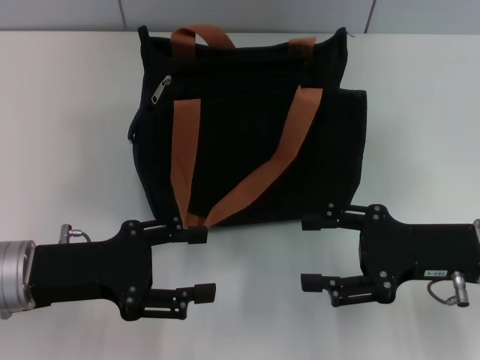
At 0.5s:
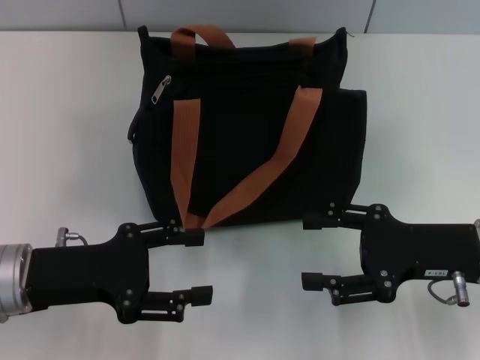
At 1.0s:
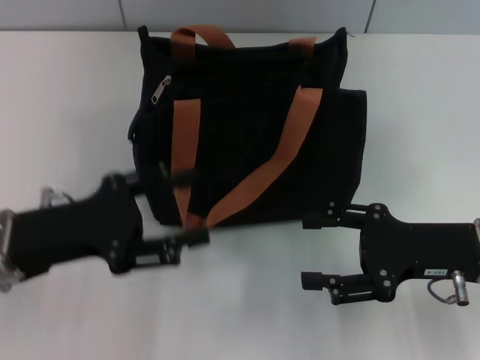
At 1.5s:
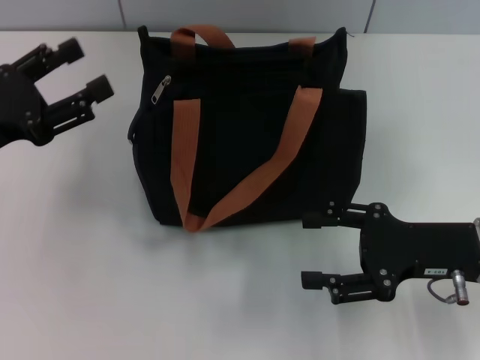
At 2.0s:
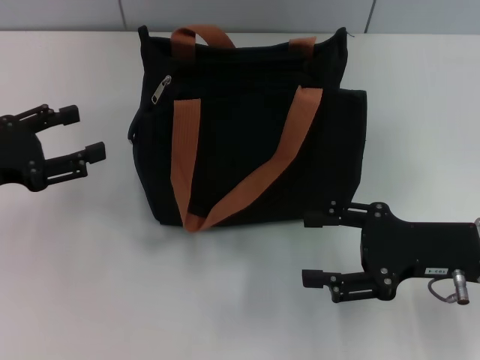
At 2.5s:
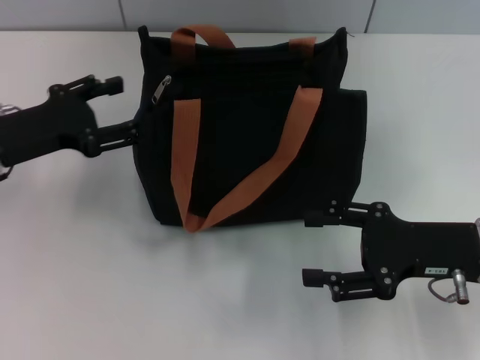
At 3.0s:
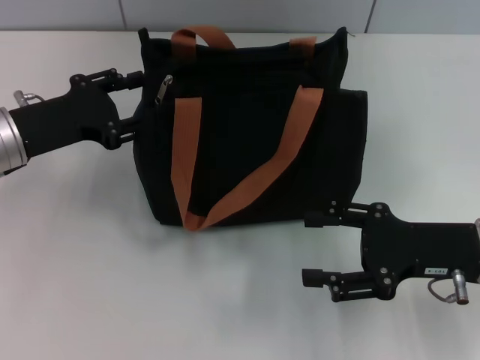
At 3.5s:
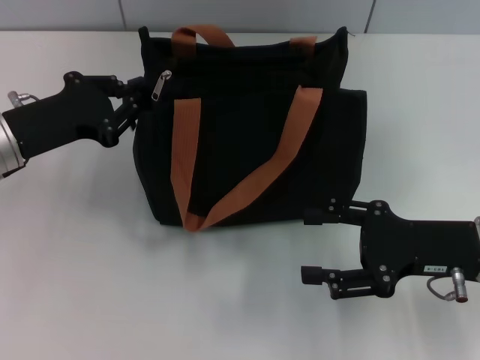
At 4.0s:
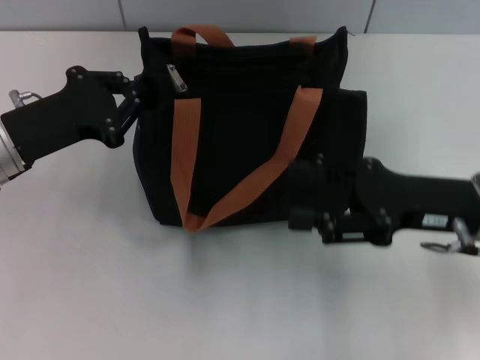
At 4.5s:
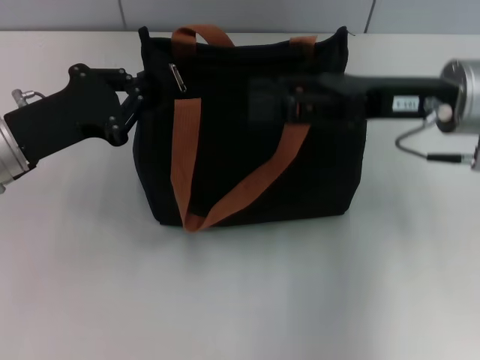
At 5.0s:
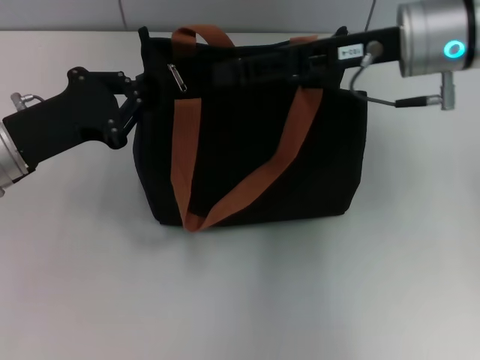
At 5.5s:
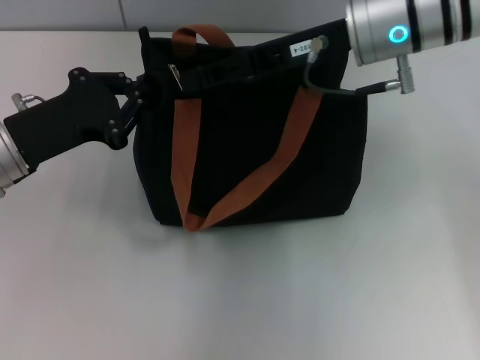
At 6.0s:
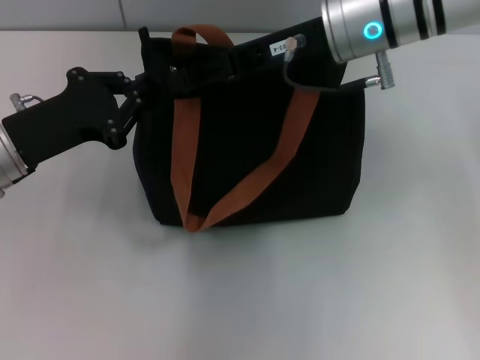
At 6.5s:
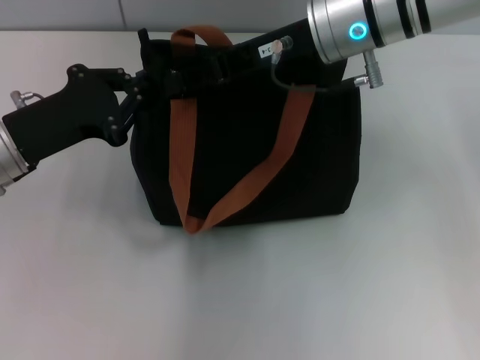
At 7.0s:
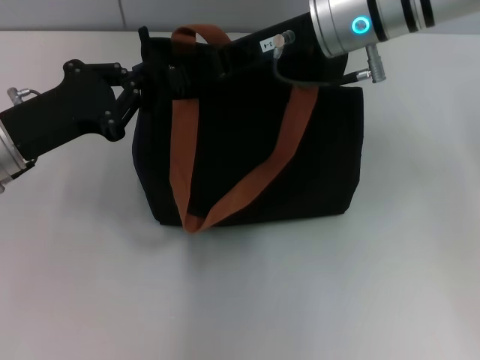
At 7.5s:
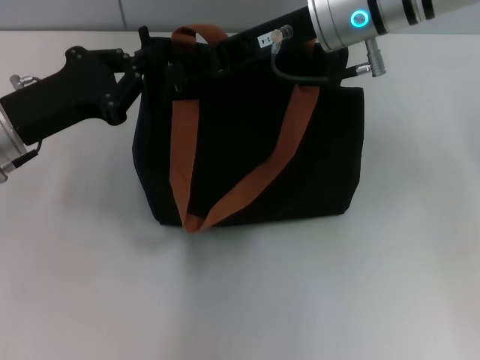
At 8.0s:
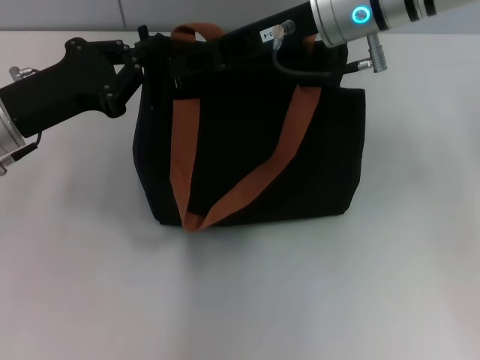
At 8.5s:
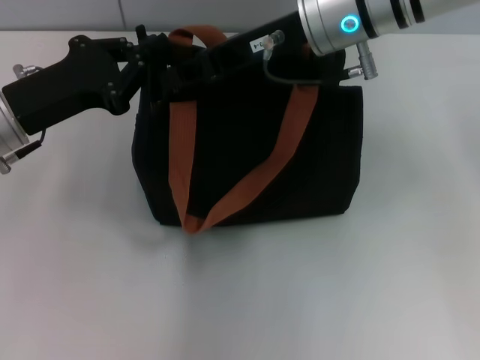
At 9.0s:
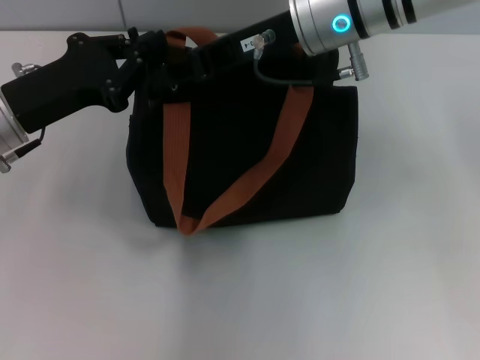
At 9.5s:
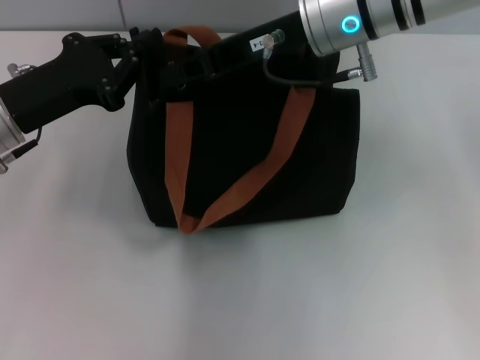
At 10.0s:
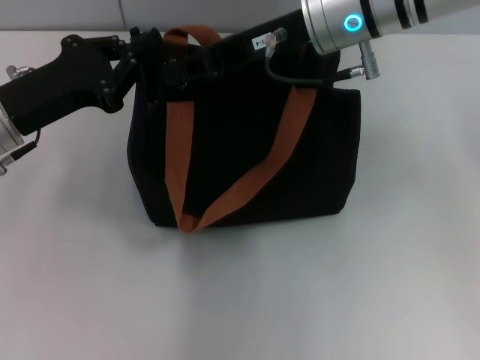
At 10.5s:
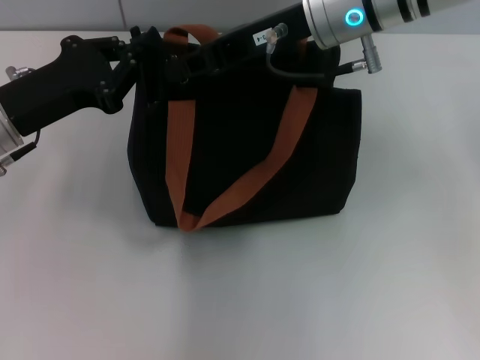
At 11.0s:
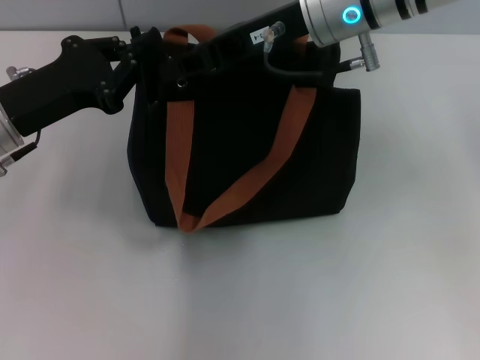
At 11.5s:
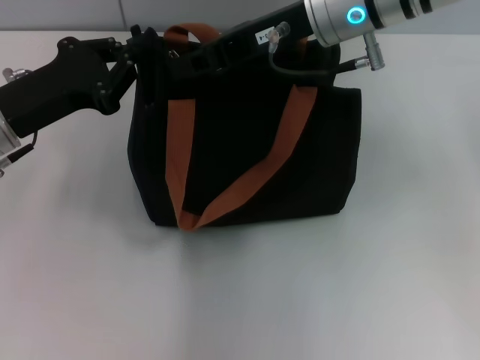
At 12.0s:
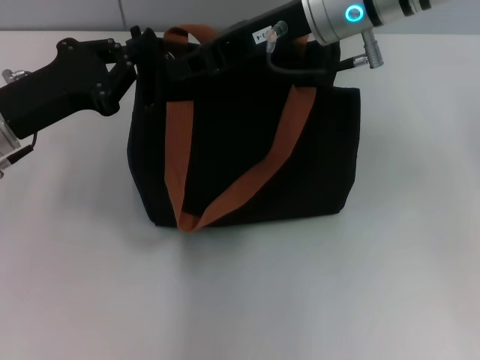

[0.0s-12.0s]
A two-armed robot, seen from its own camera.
0.0s to 2.0s: The left gripper is displaced to the left by some 10 cm.
2.0s to 4.0s: The left gripper travels to the right by some 5 cm, and closes.
4.0s to 6.0s: The right gripper goes some 20 cm forward, to the left and upward, and closes.
6.0s to 10.0s: There are only small adjustments of the grippers.
10.0s to 12.0s: Both grippers stay about where they are.

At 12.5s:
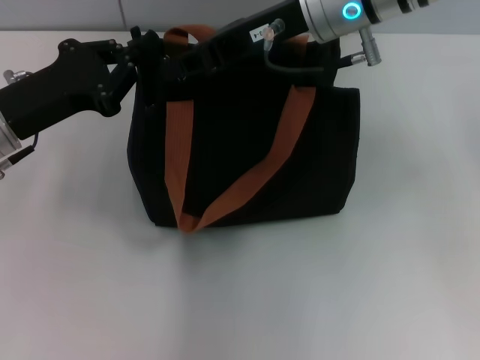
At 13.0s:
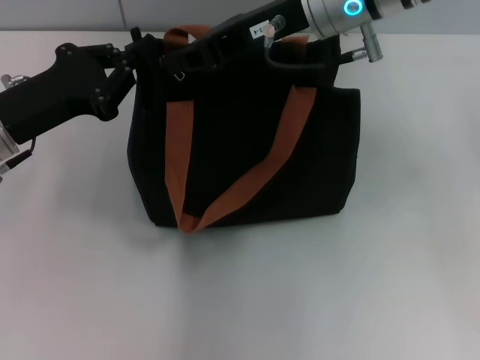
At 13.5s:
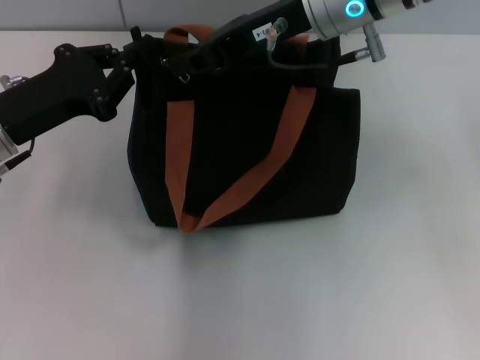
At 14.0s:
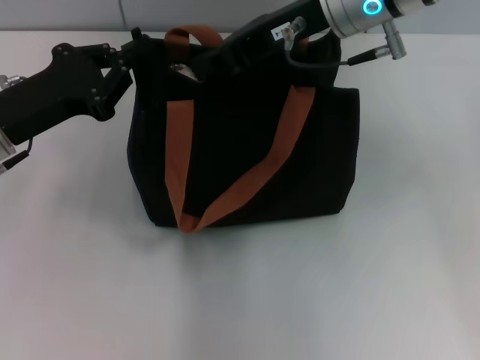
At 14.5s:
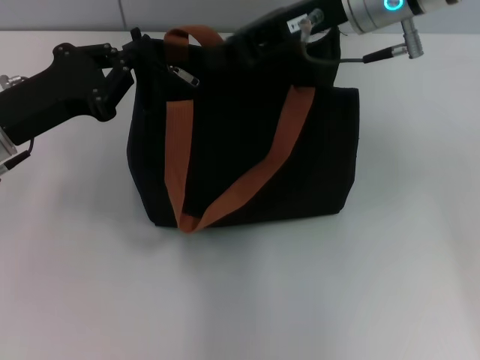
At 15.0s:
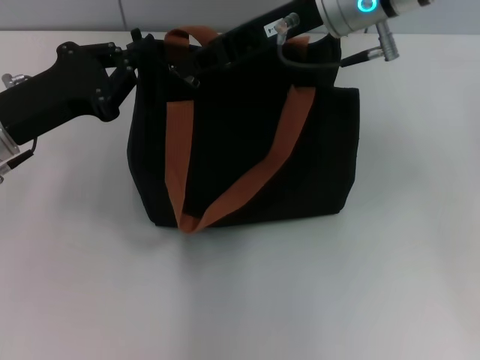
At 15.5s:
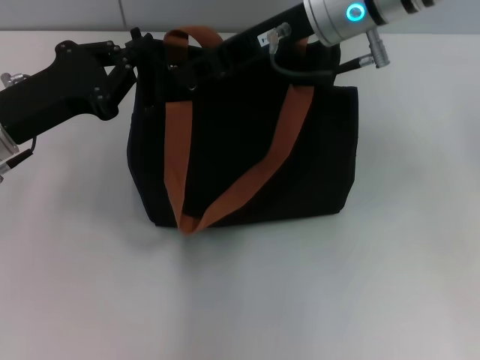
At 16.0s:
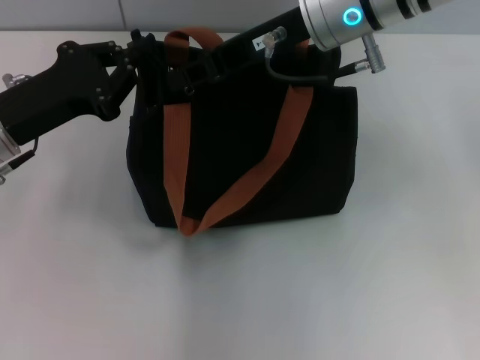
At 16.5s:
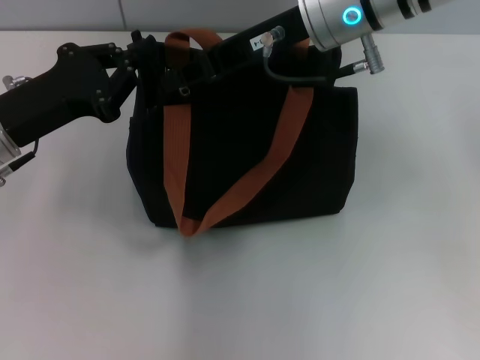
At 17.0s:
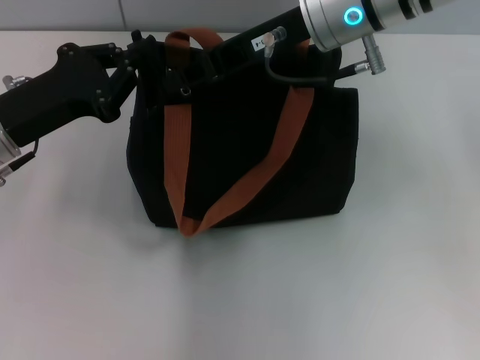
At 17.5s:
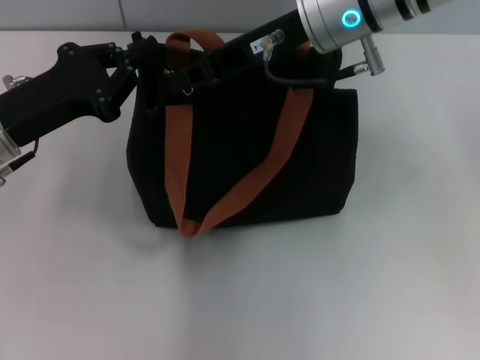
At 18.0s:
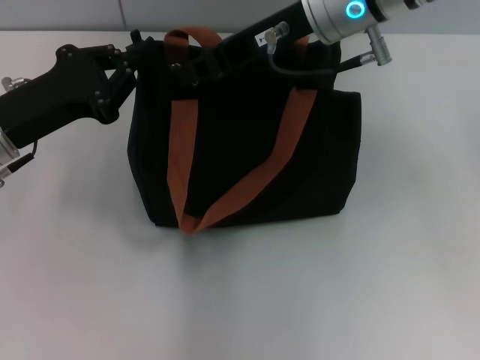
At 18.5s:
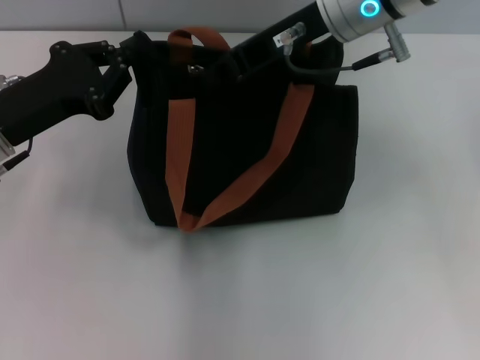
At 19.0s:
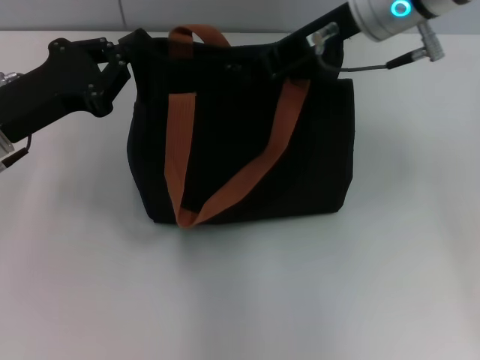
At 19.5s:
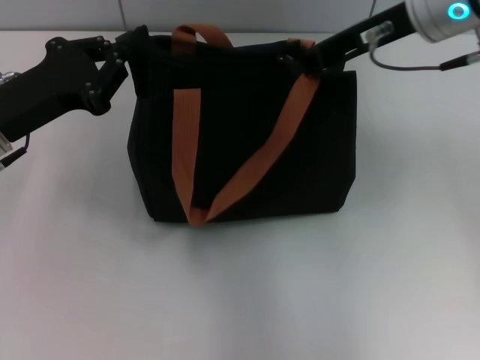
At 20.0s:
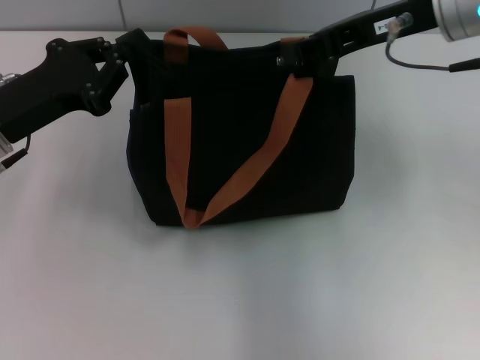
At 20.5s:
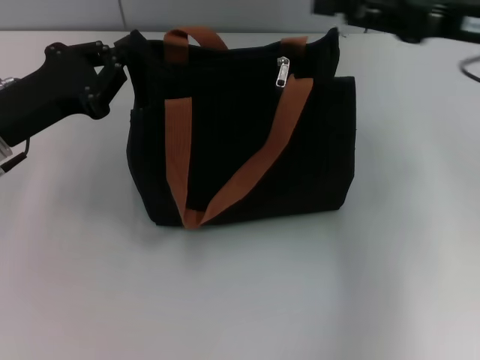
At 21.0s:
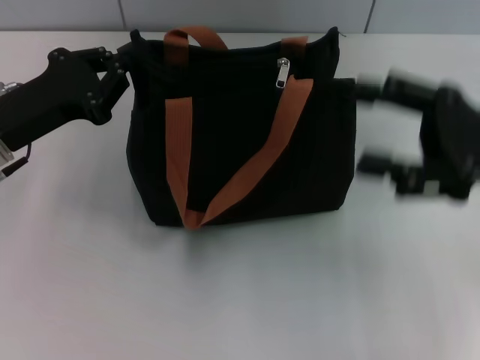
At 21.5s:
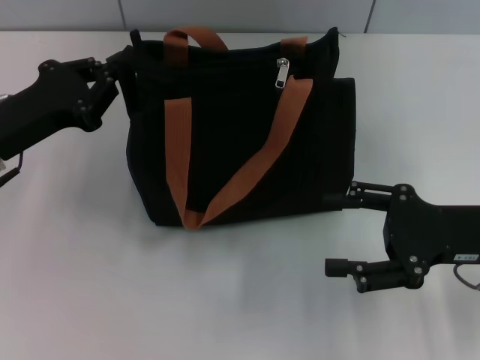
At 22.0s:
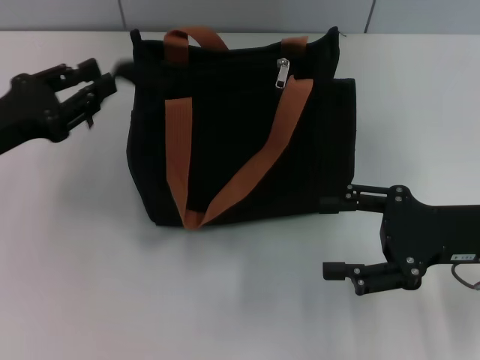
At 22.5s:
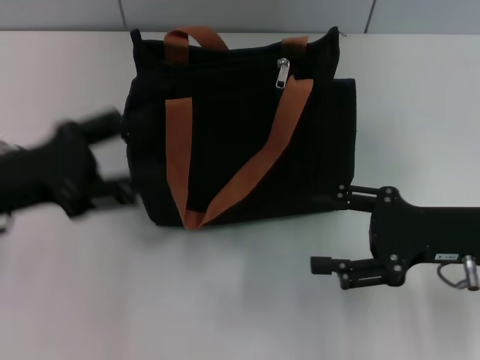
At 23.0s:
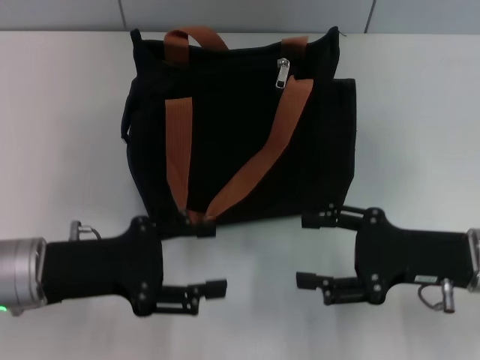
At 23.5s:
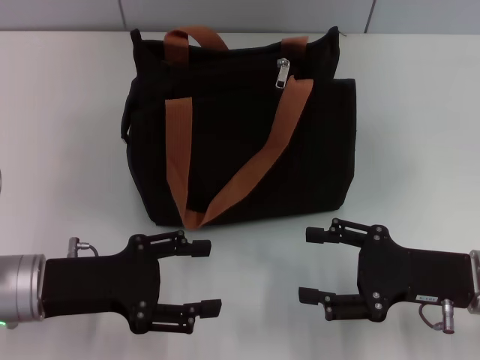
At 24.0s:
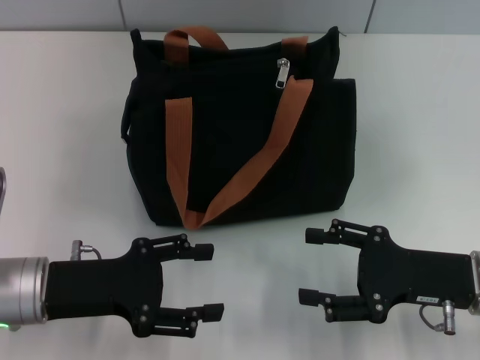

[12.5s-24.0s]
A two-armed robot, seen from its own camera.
Step, 12.5s to 20.0s: Pull up the zipper with your right hand.
Step, 20.5s to 22.0s: Grab the zipper with your left hand.
12.5s to 18.5s: There are only small adjustments of the grippers.
18.5s to 20.0s: The right gripper moves to the right, approximately 10 cm.
20.0s to 22.0s: The right gripper heads downward, backward and to the right, covering approximately 20 cm, and opens up.
22.0s to 24.0s: The right gripper moves downward, about 5 cm, while the left gripper heads backward, to the right and downward, covering approximately 10 cm, and opens.

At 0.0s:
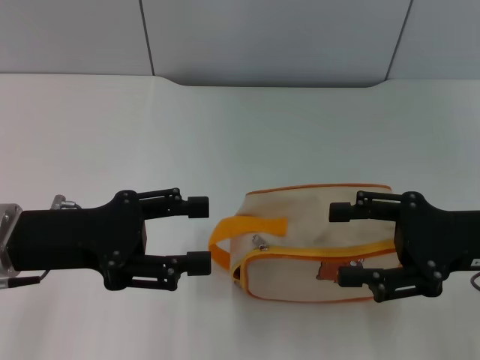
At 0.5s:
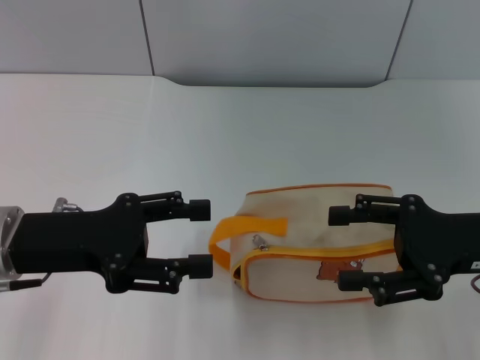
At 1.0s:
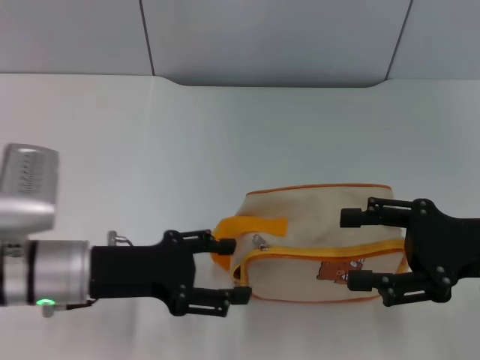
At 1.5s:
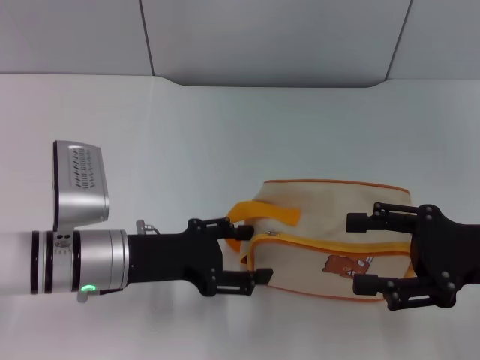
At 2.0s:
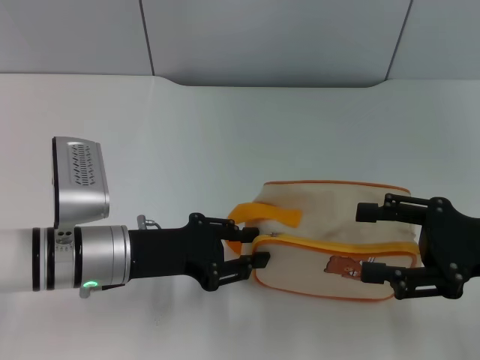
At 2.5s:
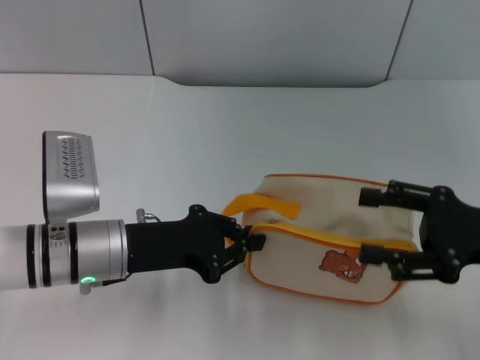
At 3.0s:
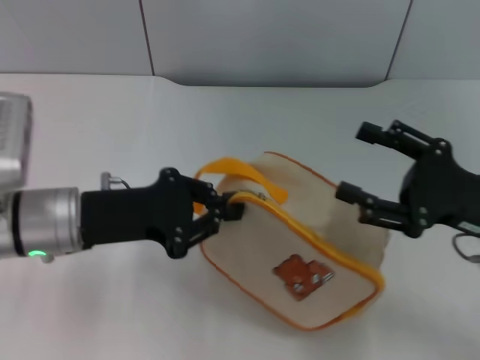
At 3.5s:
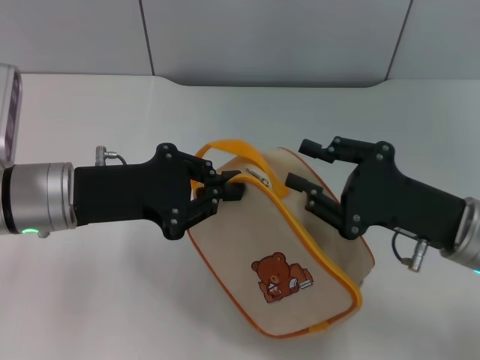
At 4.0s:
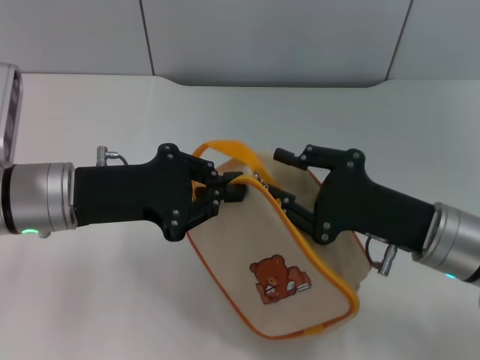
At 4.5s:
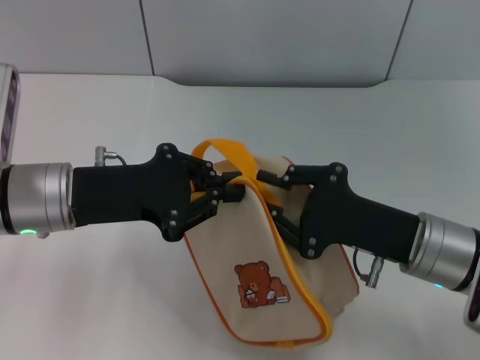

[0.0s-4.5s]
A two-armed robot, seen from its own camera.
Step, 0.0s to 3.0s: Pick up the bag with left gripper.
0.0s to 2.0s: The left gripper moves downward and to the right, roughly 10 cm, and closes up.
2.0s to 4.5s: The right gripper goes some 10 cm to the left, and closes. The left gripper travels upward by roughly 5 cm, and closes.
